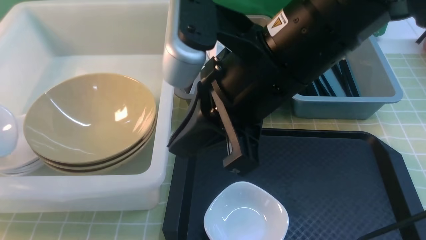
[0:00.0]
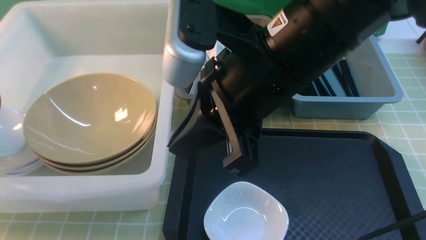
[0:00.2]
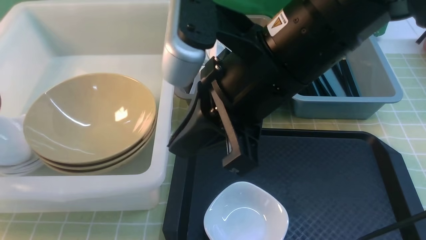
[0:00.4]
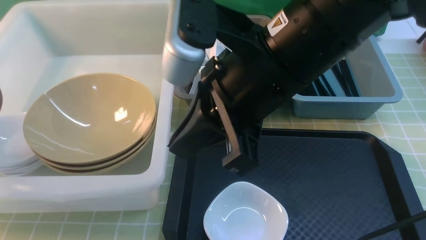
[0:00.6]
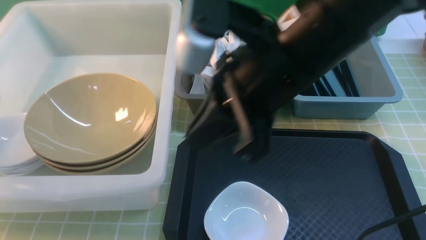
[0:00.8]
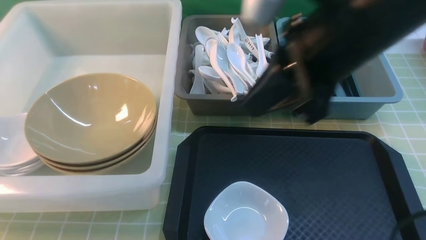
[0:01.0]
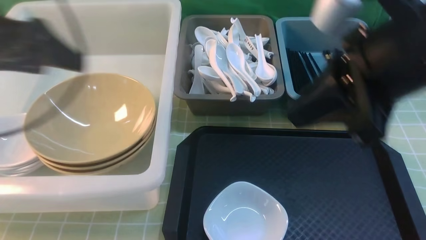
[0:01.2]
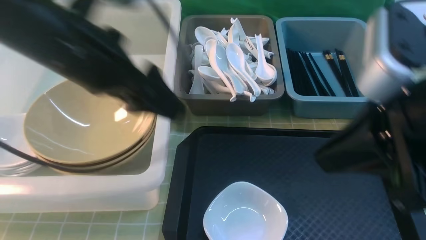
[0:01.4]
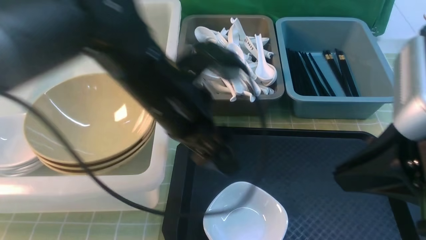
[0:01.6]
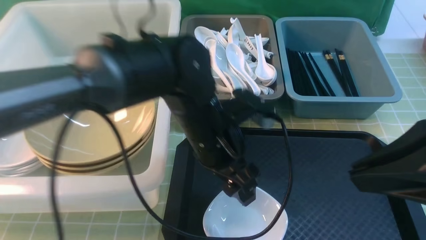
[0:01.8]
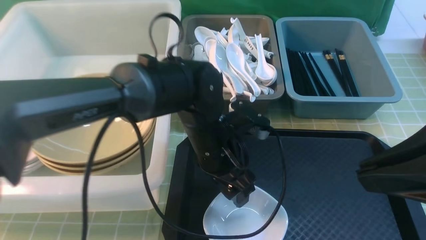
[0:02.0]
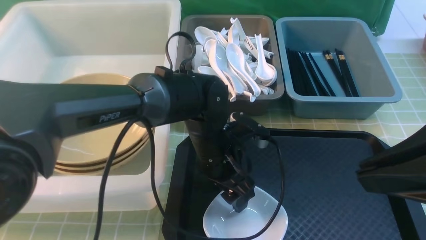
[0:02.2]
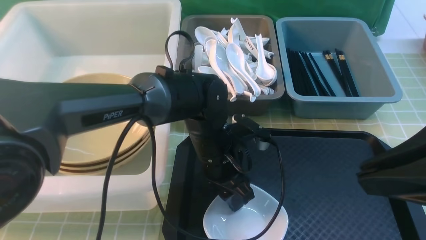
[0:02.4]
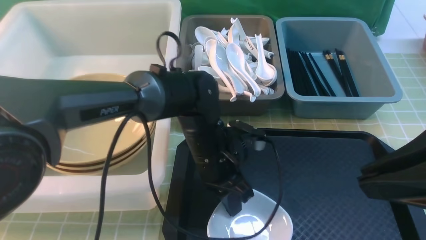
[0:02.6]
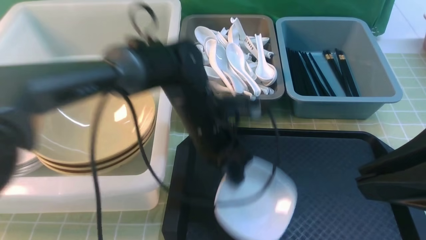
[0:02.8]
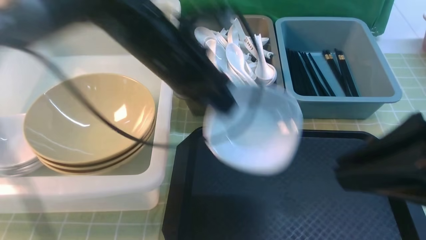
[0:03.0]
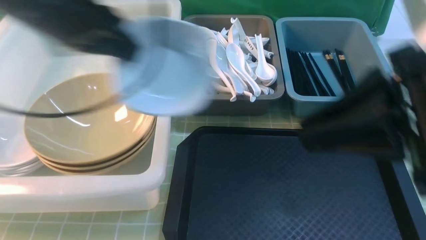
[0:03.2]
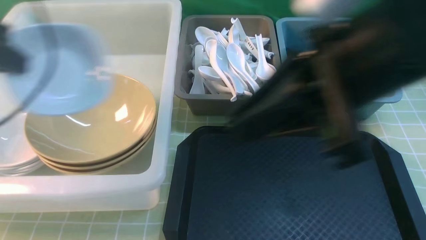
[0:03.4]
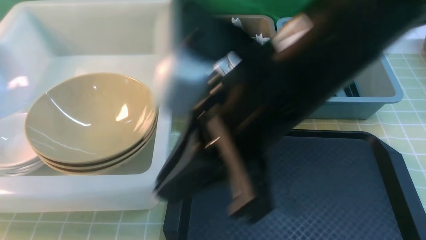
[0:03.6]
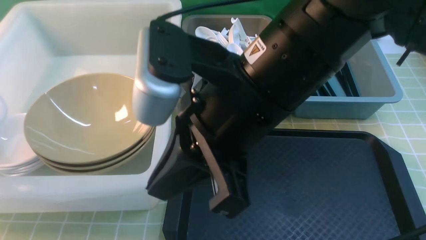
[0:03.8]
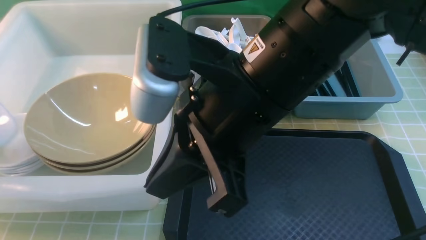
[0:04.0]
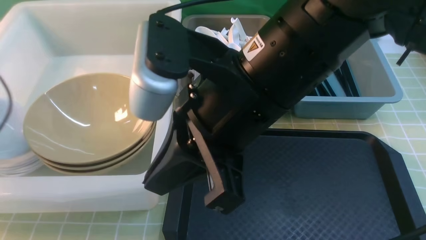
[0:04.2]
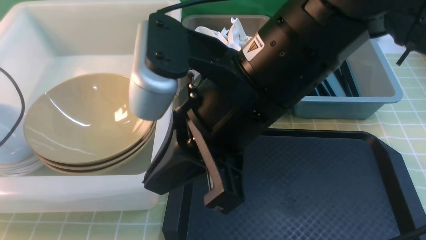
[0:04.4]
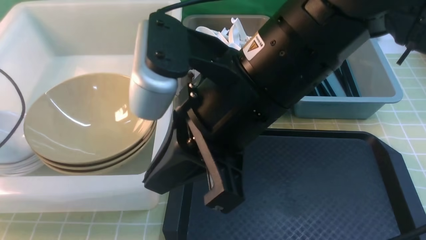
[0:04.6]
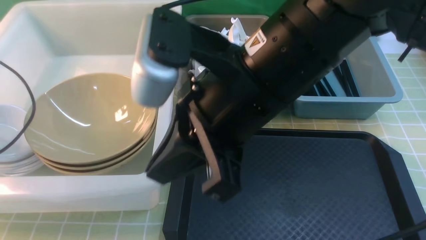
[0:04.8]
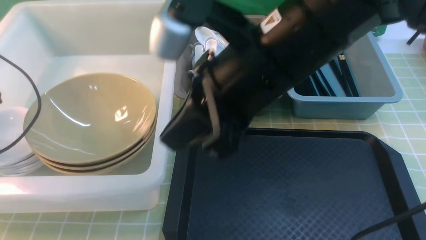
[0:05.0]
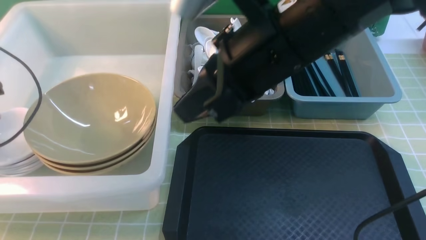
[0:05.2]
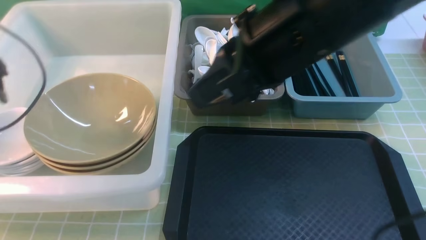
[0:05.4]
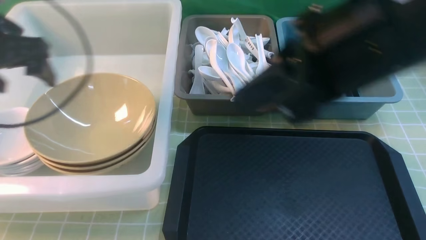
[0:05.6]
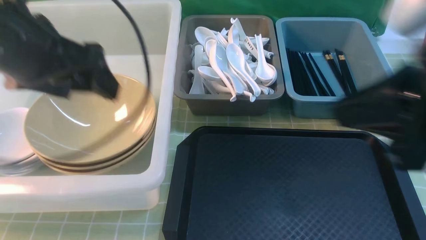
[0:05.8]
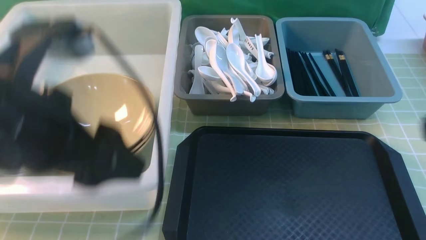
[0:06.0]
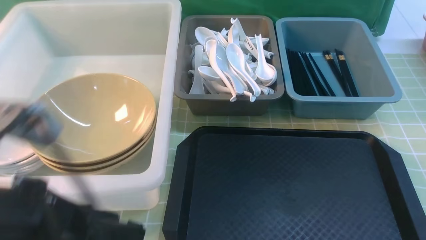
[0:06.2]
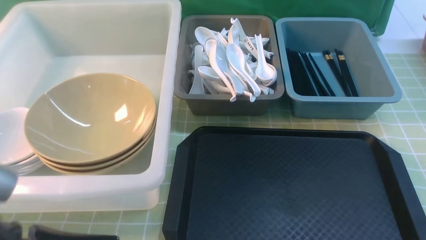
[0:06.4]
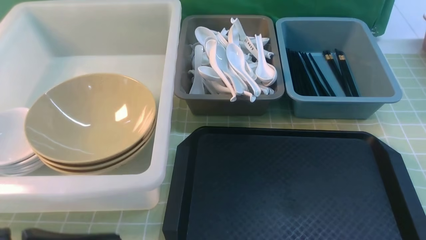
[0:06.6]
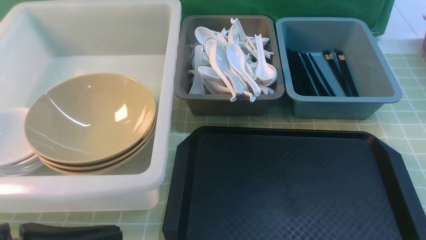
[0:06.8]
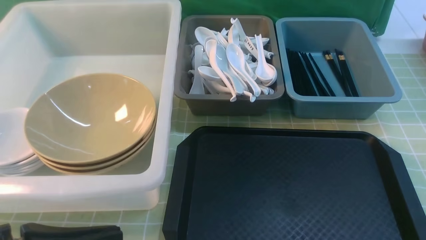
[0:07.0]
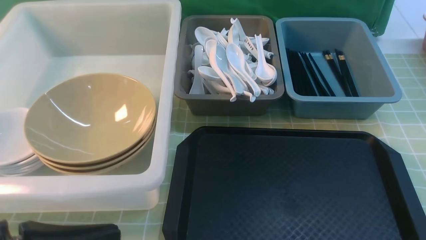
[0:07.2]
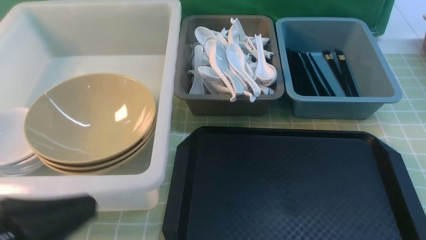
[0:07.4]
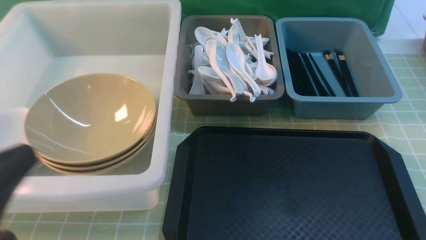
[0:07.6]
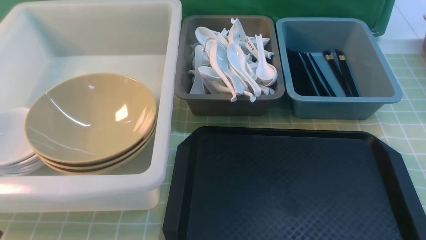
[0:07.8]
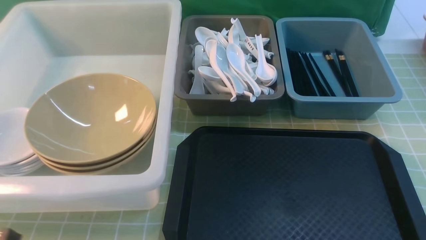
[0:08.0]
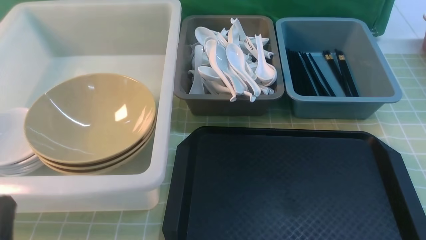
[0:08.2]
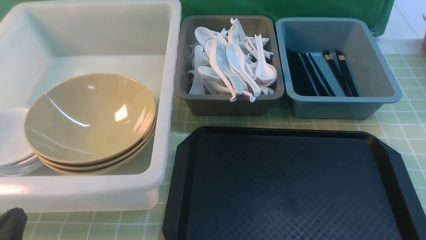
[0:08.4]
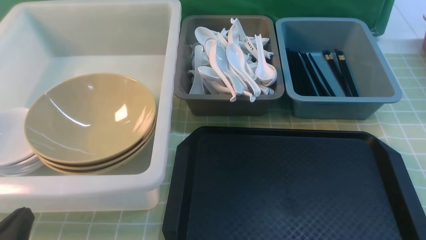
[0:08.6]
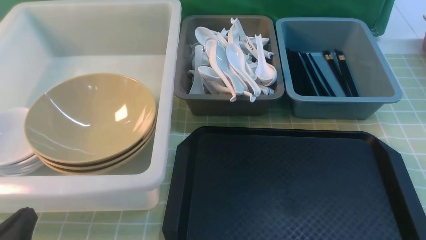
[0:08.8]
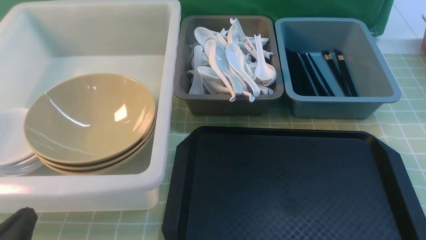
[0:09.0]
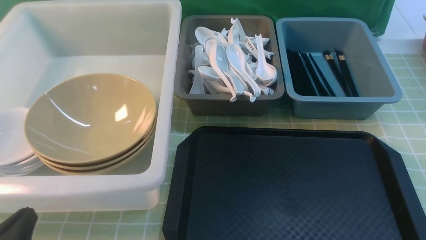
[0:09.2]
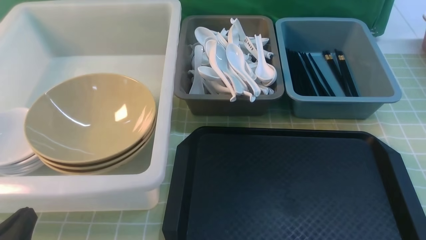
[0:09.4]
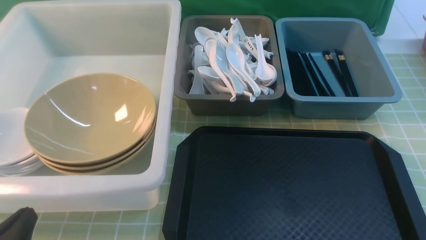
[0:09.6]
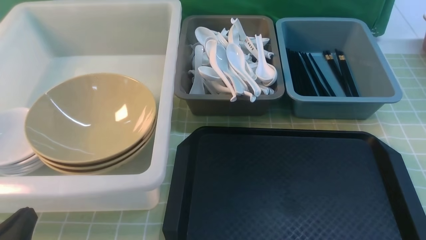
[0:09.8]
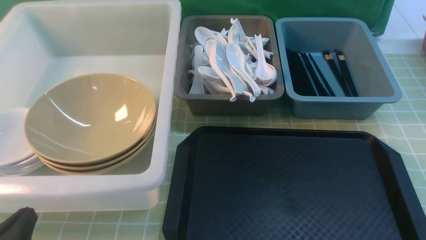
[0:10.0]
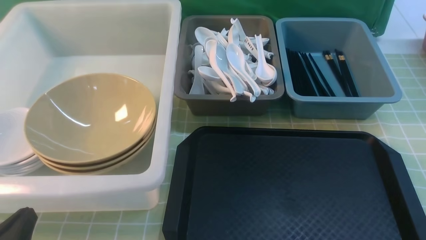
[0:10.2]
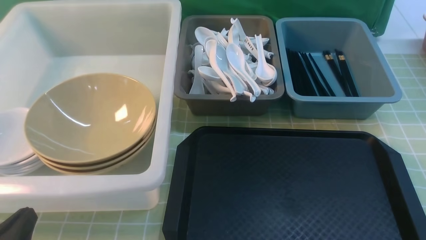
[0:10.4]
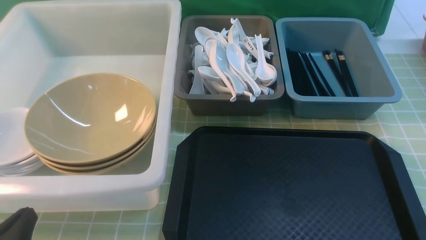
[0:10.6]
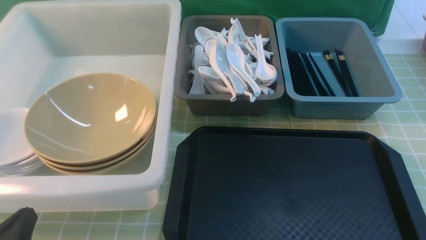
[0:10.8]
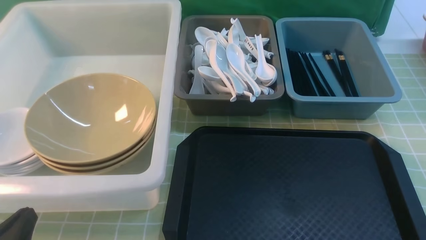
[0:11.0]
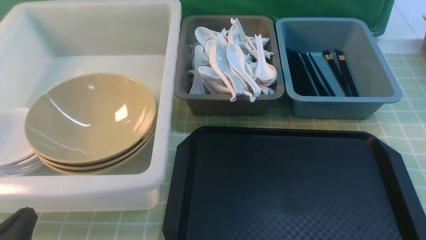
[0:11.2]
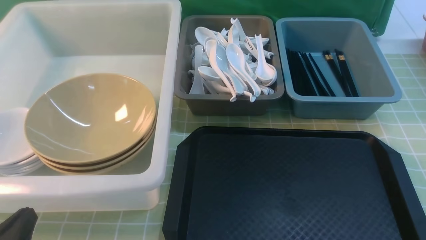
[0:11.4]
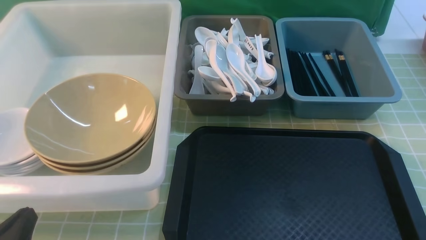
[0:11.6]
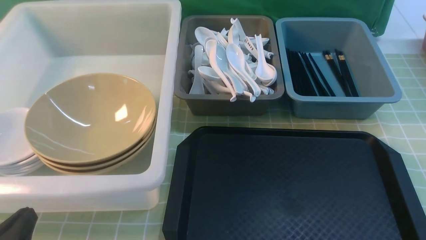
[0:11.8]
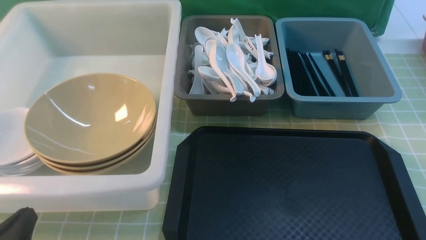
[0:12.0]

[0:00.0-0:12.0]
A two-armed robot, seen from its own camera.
Task of the whole recording: on green table put chopsticks spoon bowls plates into blue grey white boxes.
Step, 0:00.8 to 0:02.6: use the left arm to grab the plate.
Step, 0:03.0 to 0:05.0: use the left arm to put the plate into the large storage box on the left.
0:00.0 to 0:01.6: The right gripper travels to the right and backward by some 15 cm. Meanwhile the left gripper goes about 35 cm to the right, and opens its fingers.
0:01.6 to 0:03.0: The left gripper heads to the left, covering some 5 cm, reaches roughly 15 cm downward, then returns, and closes.
0:03.0 to 0:04.4: The left gripper is displaced to the left by approximately 30 cm. Meanwhile the right gripper is displaced to the left by roughly 15 cm.
0:04.4 to 0:06.0: The left gripper is displaced to the right, backward and upward by approximately 30 cm, and opens up, while the right gripper goes about 25 cm to the right and backward.
0:06.0 to 0:07.6: The right gripper goes about 10 cm downward and backward. Meanwhile the left gripper shifts roughly 15 cm backward, to the left and downward, and closes up.
0:07.6 to 0:09.0: The left gripper heads downward, covering approximately 10 cm.
0:10.4 to 0:12.0: Both grippers stay about where they are.
